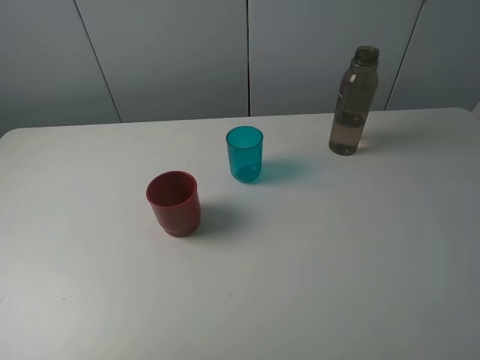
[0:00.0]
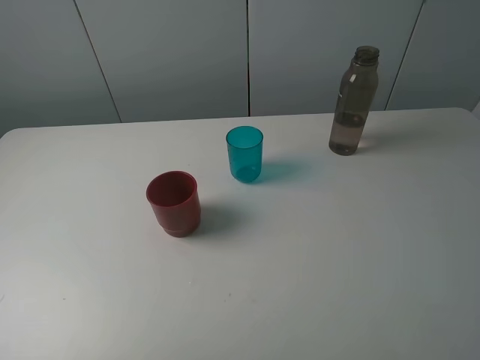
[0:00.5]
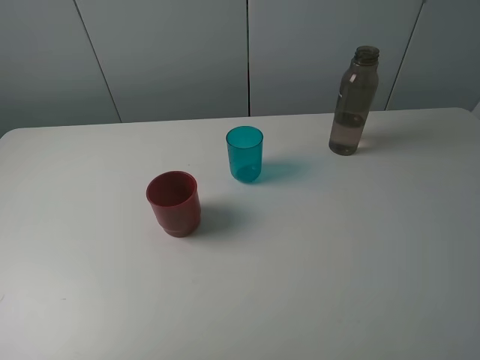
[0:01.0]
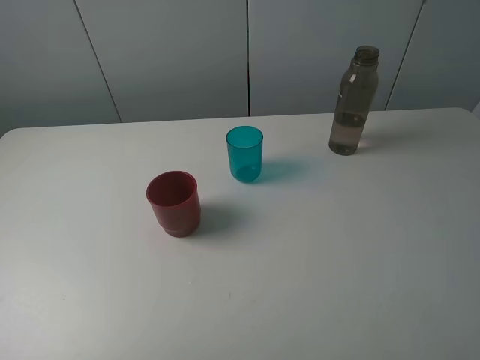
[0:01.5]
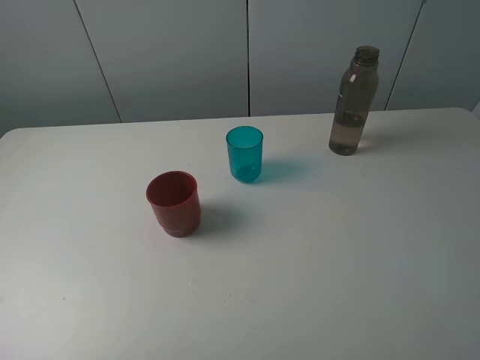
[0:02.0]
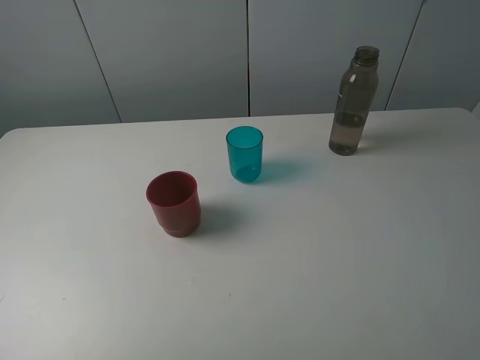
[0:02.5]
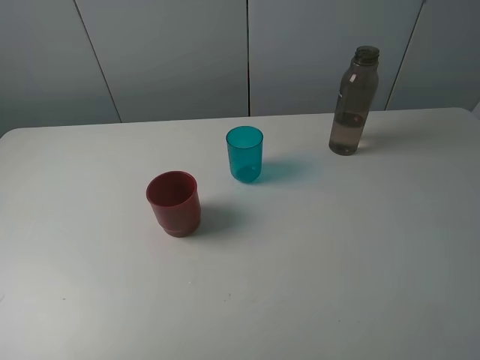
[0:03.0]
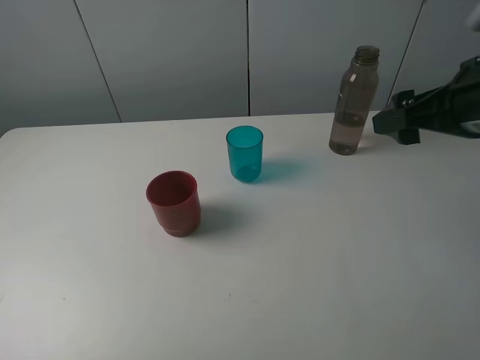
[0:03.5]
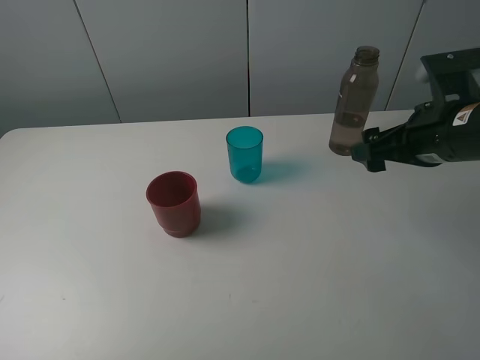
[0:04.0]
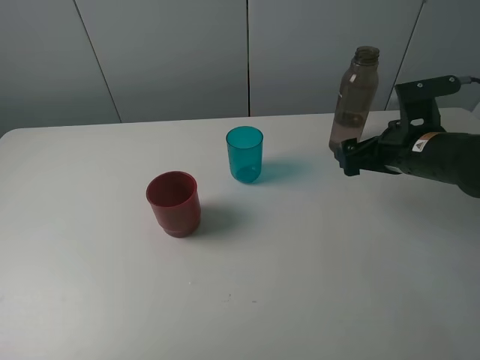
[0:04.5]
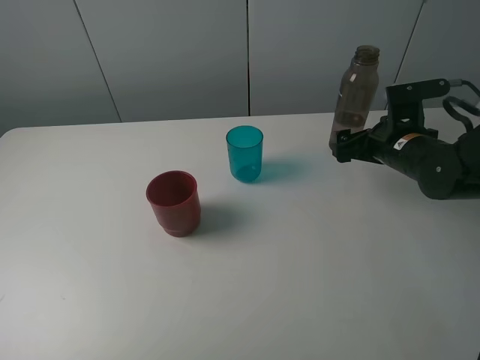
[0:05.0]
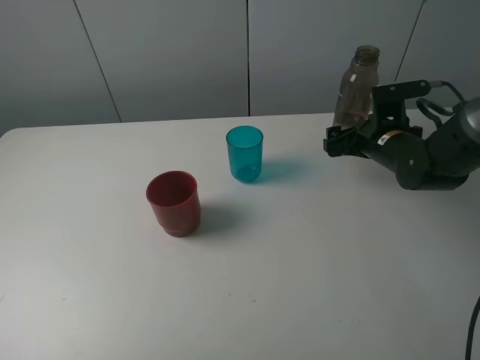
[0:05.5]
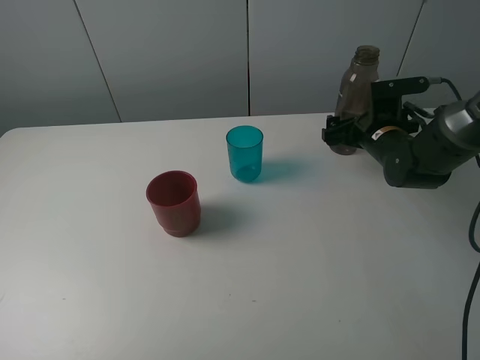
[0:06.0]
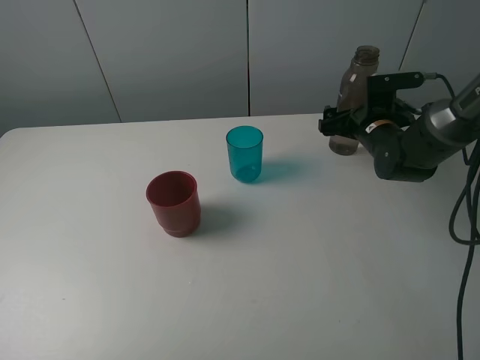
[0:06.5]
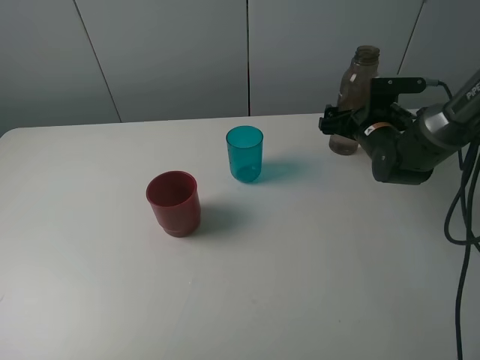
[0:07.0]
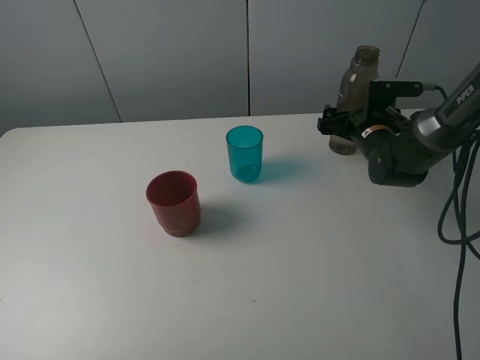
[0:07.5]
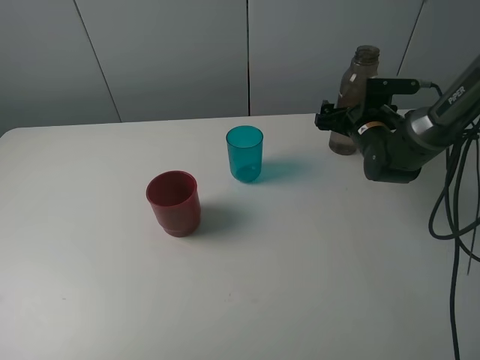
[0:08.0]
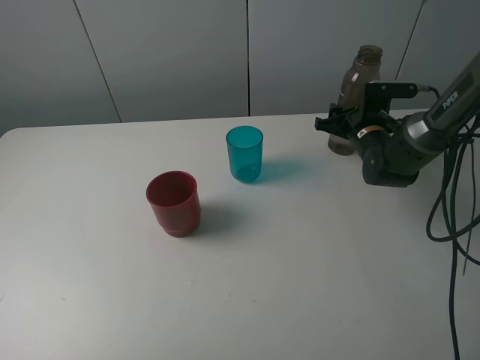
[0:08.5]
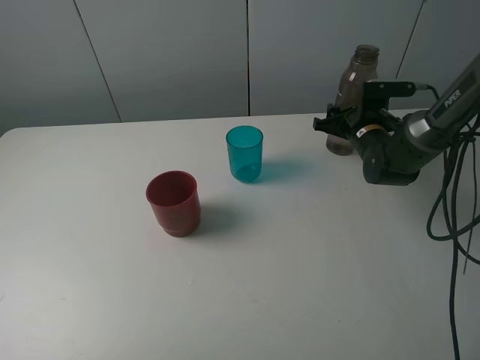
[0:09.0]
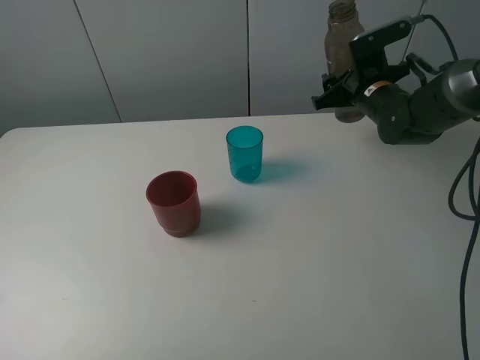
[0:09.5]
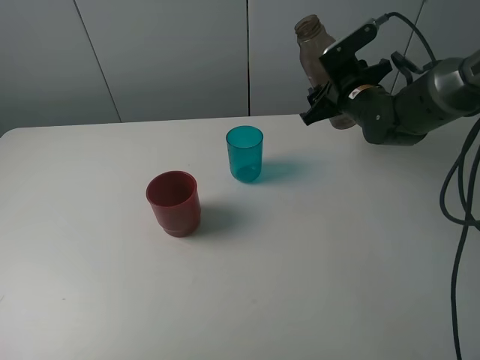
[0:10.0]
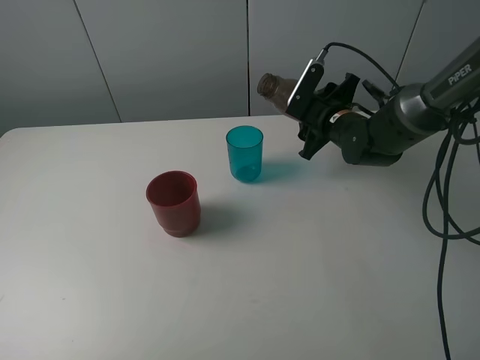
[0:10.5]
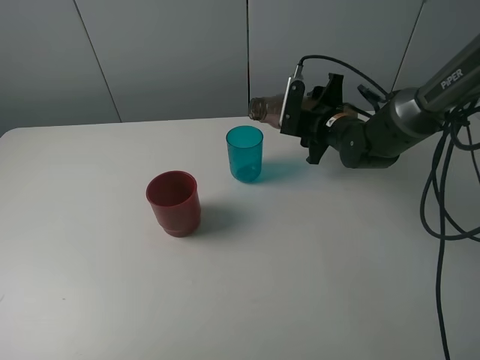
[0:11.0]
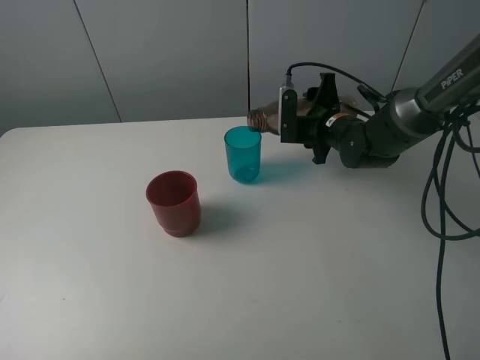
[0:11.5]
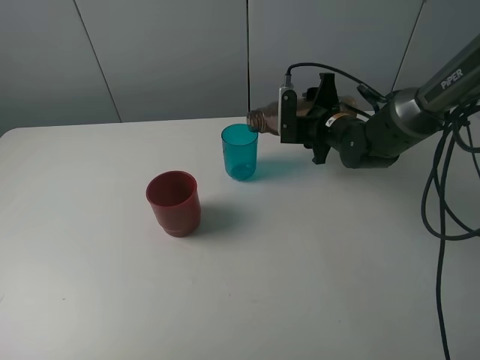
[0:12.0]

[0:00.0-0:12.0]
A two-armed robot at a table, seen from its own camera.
Task of the whole recording: pick up the bottle and pour water into the cup, then pick up the cup containing water and pour it into another cup.
Step, 0:00.0 to 0:08.5: Grasp the brown bottle with the right gripper.
0:00.0 to 0:02.0: Both grippers stay about where they are.
0:02.0 to 0:04.0: The right gripper shifts approximately 25 cm forward.
0:04.0 to 0:06.0: The right gripper travels forward and downward by roughly 15 cm.
0:06.0 to 0:08.0: The grippers stay close to where they were, moving slightly.
0:08.0 to 0:10.0: The right gripper is displaced upward by about 5 cm, and closes up.

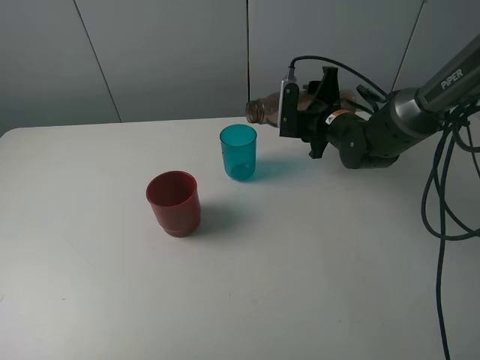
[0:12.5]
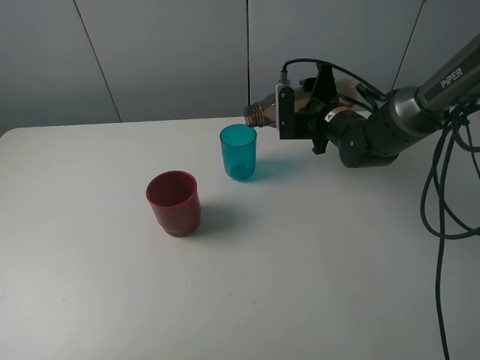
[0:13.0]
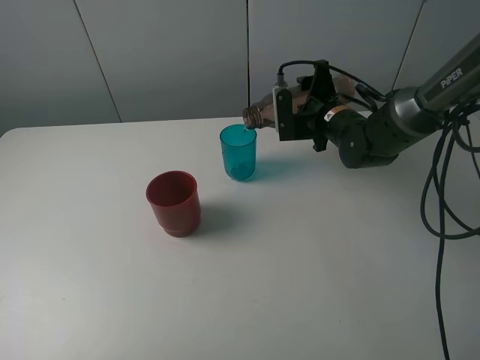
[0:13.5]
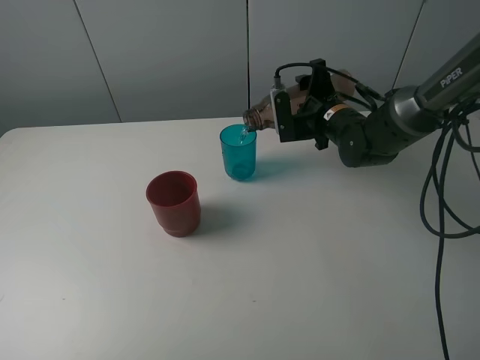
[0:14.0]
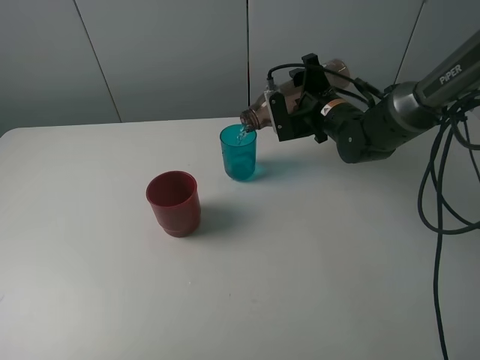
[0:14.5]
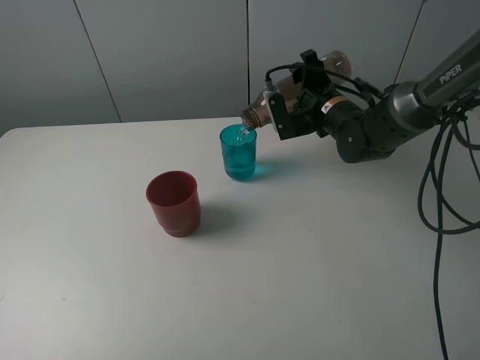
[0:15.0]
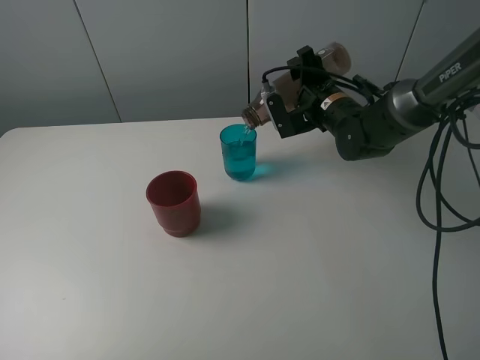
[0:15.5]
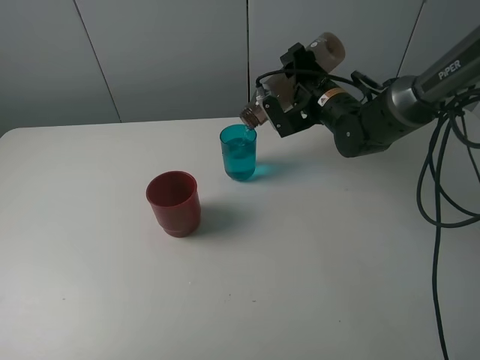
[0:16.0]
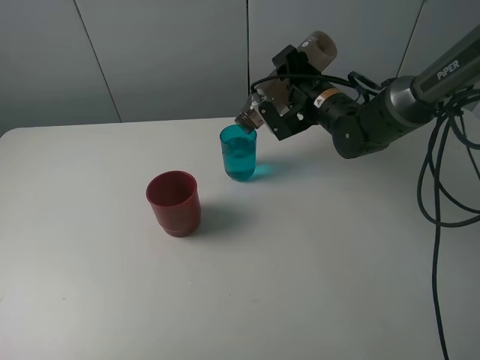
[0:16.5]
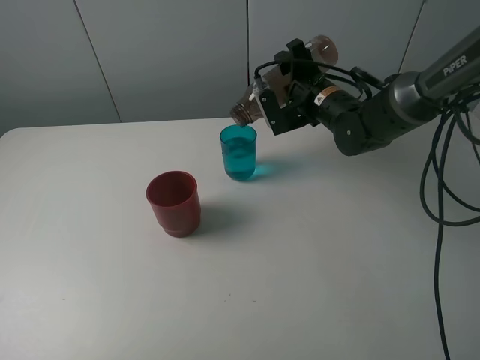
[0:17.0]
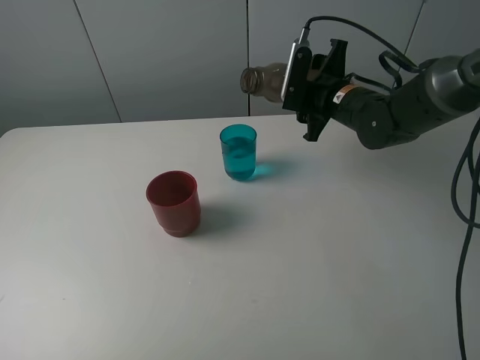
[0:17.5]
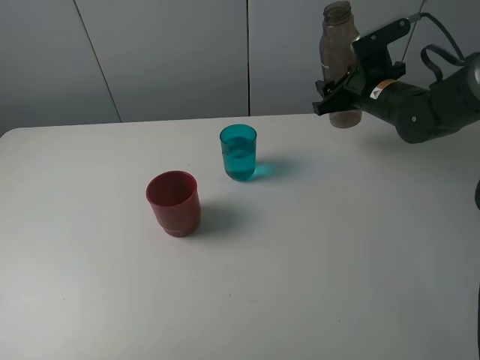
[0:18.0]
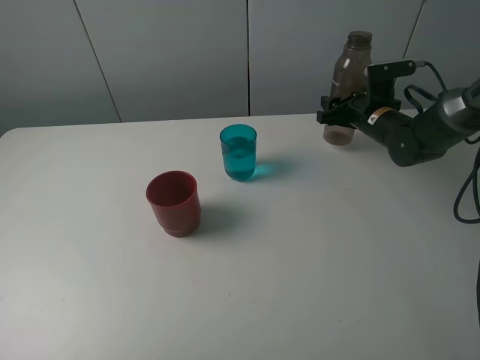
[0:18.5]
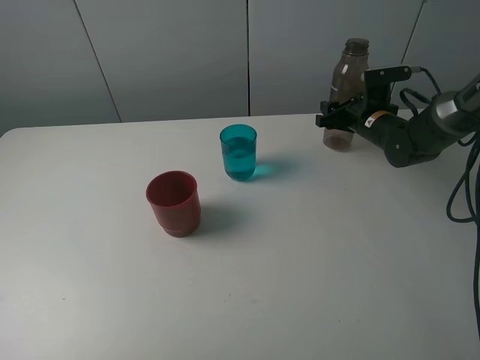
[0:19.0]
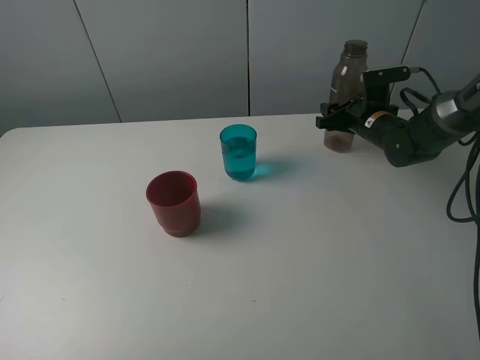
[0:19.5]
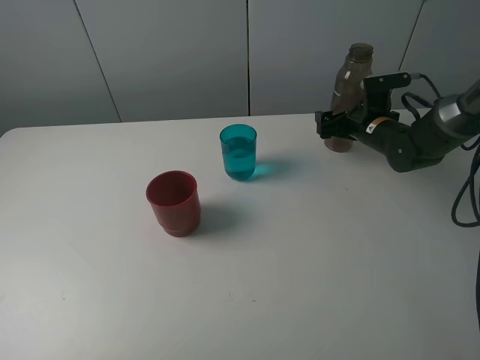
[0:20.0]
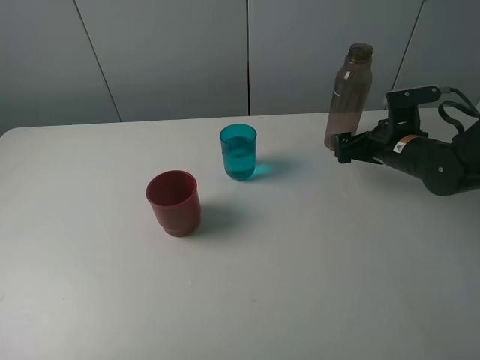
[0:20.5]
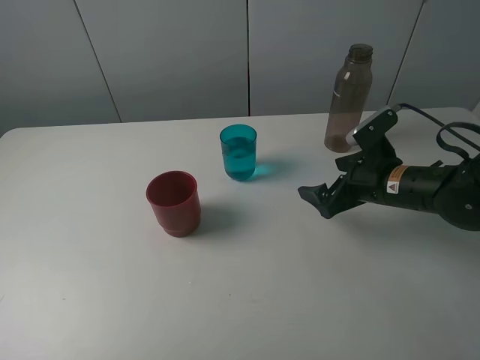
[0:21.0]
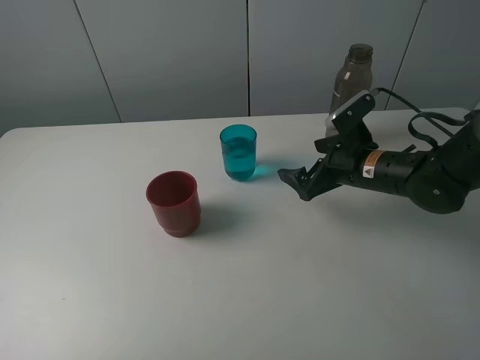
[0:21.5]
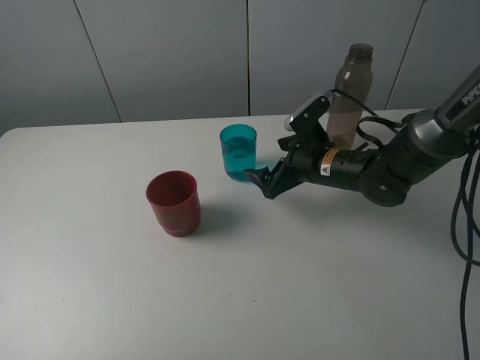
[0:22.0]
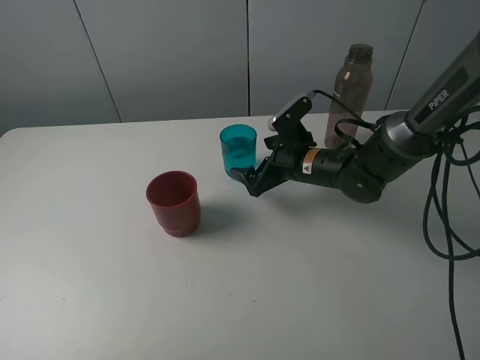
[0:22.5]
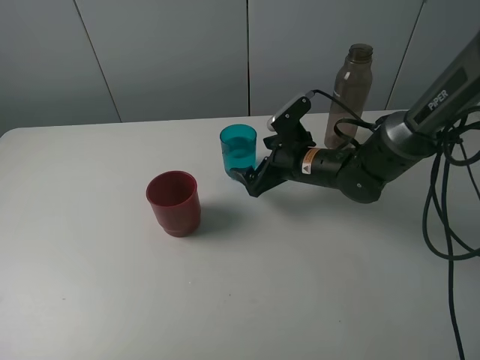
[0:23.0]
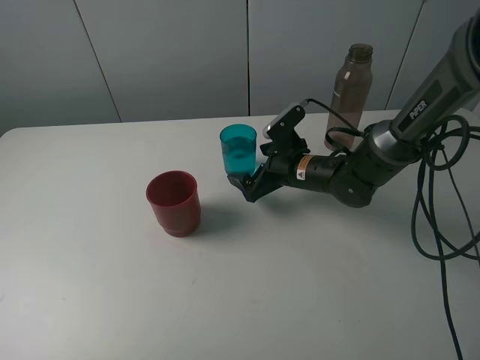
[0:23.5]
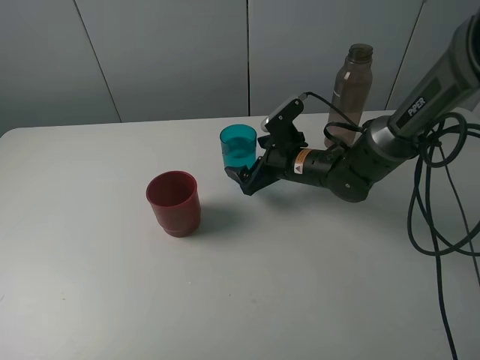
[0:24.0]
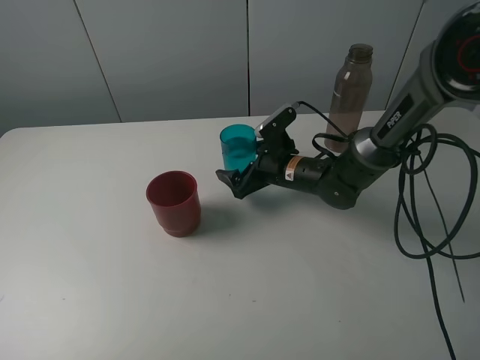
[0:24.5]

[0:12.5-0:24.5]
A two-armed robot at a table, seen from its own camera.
Task of the whole recording: pick up the bottle and pour water into the cup, then pick up the cup containing water and pour it into another cup.
Step, 0:12.5 to 0:16.5: Pour water from brown bottle to blue cup with the right gripper.
Step, 0:17.0 to 0:20.0: Place the brown bottle with the right gripper.
0:14.5 to 0:16.5: There are only small adjustments of the grippers.
0:16.5 to 0:18.5: The right gripper heads to the right, covering about 10 cm.
0:18.5 to 0:20.5: The right gripper is displaced backward by roughly 10 cm, and opens up.
0:20.5 to 0:22.5: The right gripper is displaced to the left by about 15 cm.
0:22.5 to 0:24.5: The grippers move only a little.

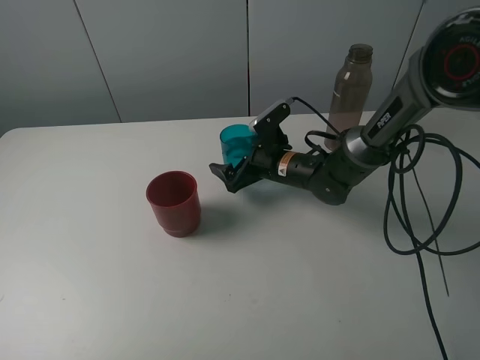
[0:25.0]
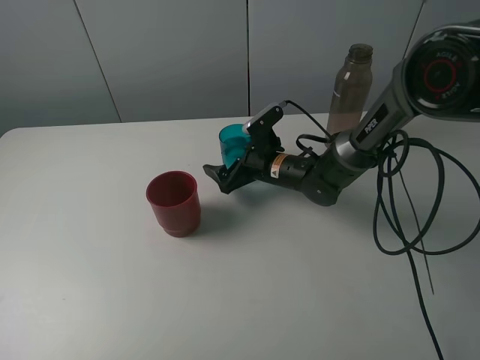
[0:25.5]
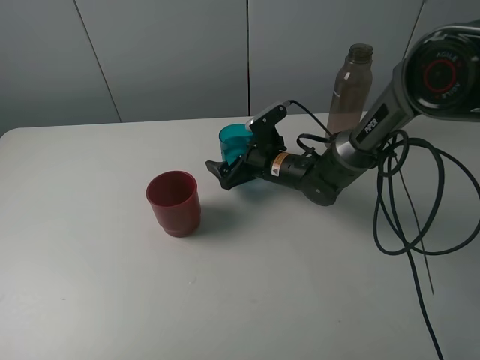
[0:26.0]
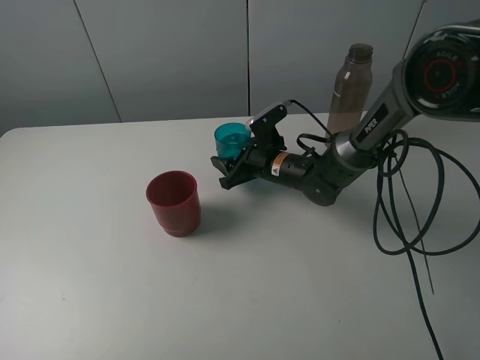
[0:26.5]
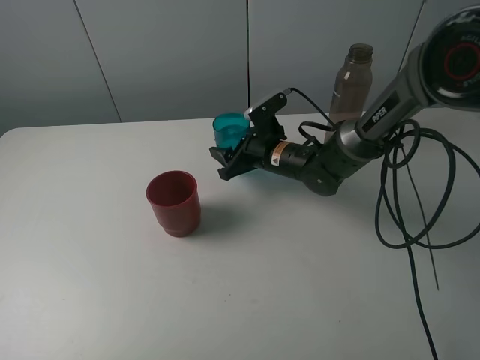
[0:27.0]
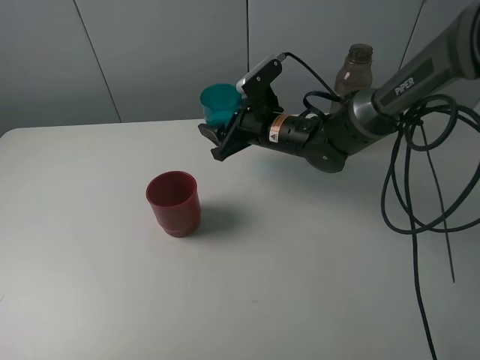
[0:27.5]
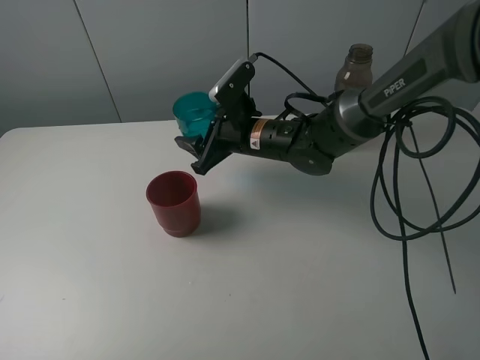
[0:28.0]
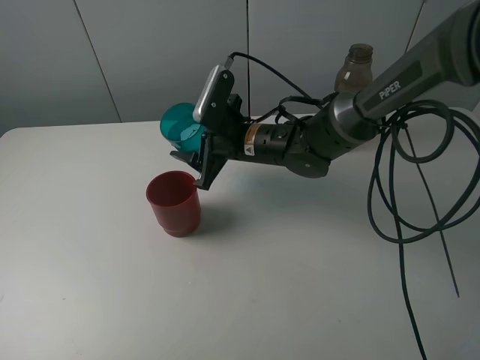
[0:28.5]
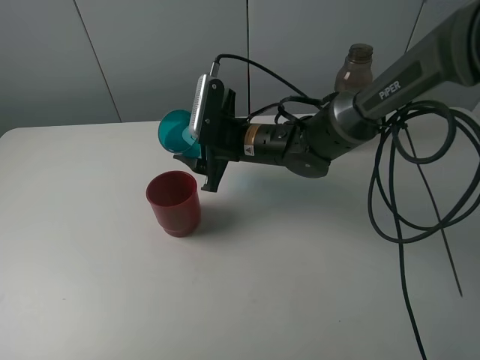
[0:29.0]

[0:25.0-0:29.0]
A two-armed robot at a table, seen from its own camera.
Task of the whole recording: pick up the bottle and pour water into the cup, then pick up the cup containing water and pour it into another cup.
0:25.0 to 0:27.0: The right gripper closes.
0:27.0 to 0:29.0: The right gripper moves upward, about 5 cm.
